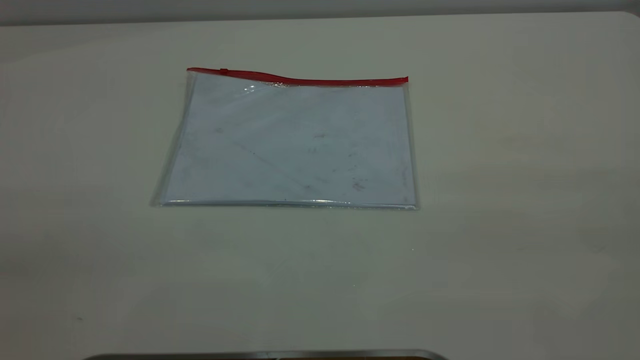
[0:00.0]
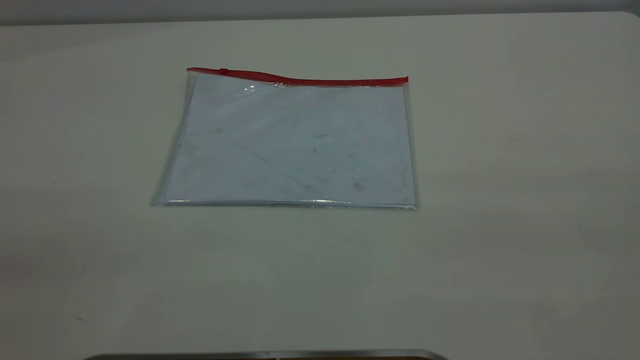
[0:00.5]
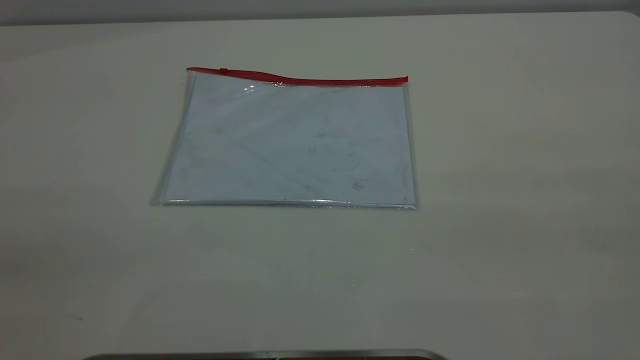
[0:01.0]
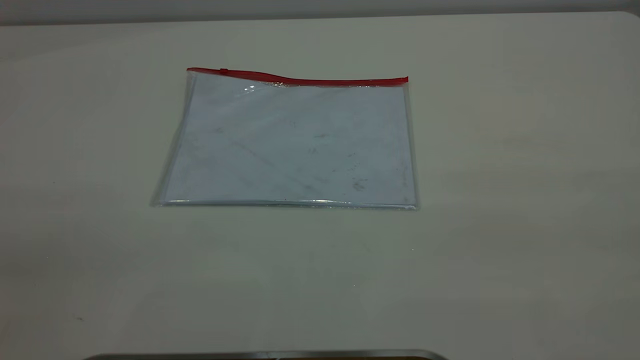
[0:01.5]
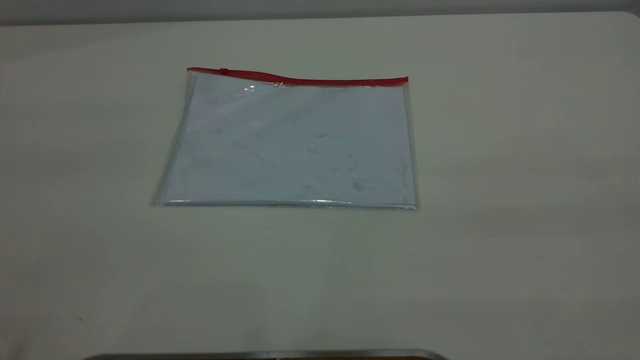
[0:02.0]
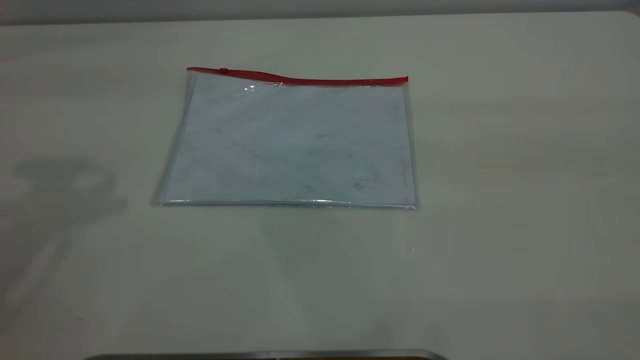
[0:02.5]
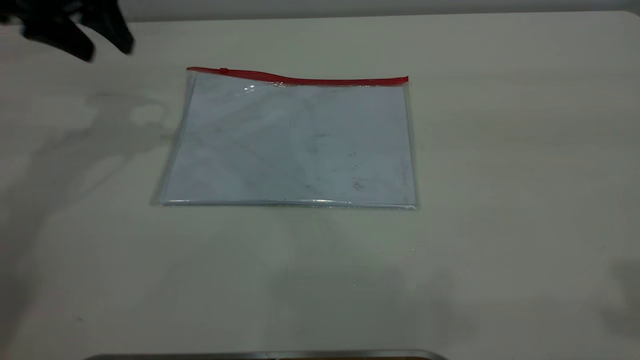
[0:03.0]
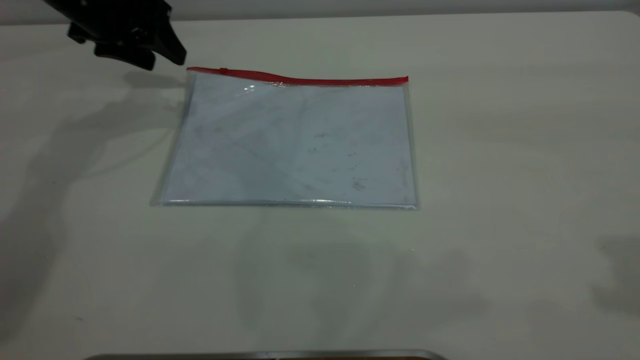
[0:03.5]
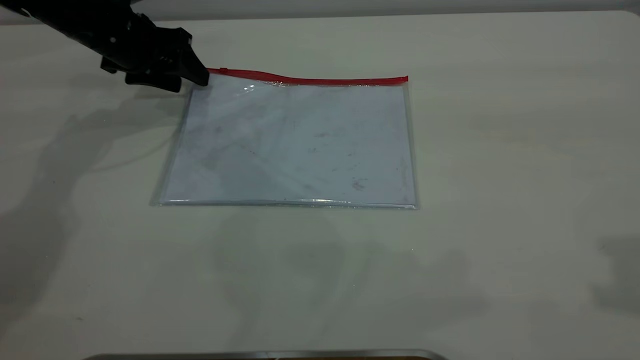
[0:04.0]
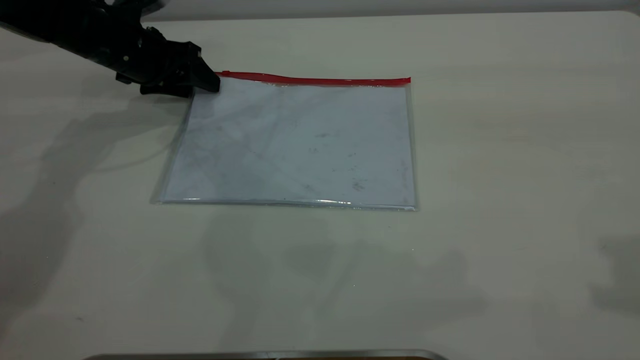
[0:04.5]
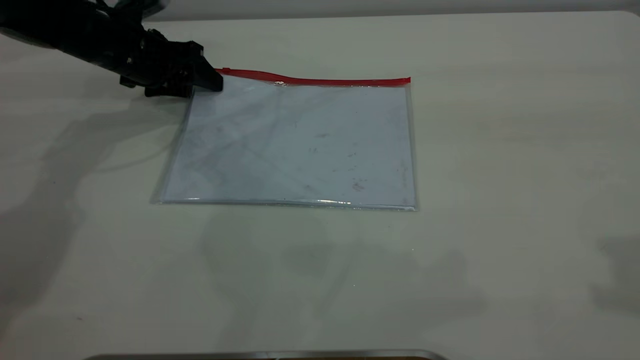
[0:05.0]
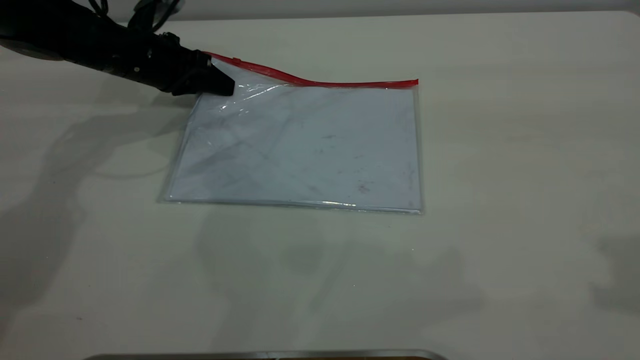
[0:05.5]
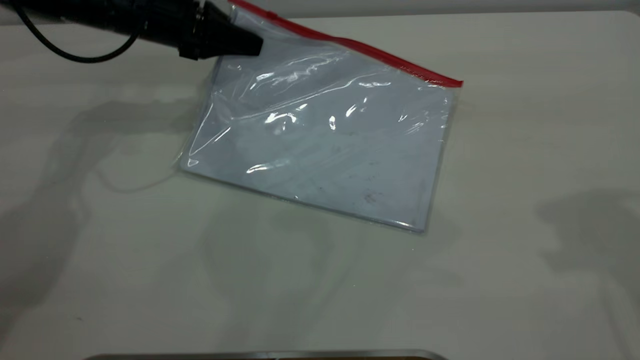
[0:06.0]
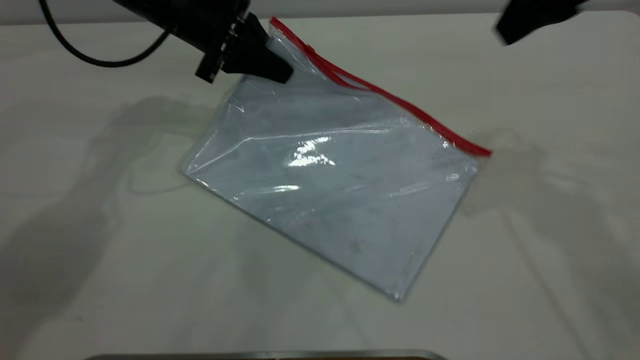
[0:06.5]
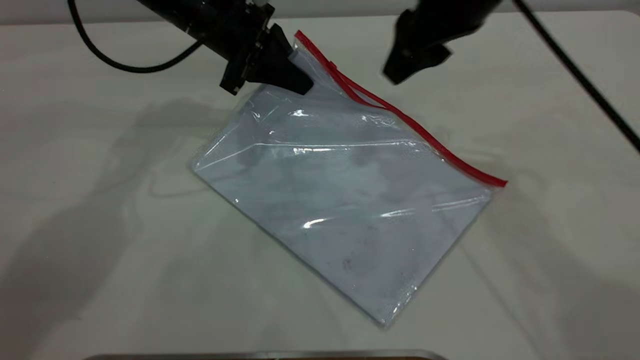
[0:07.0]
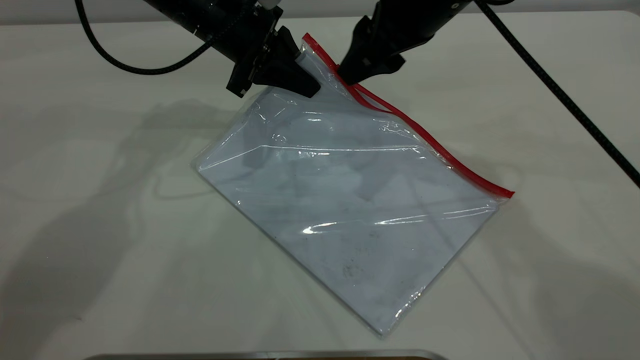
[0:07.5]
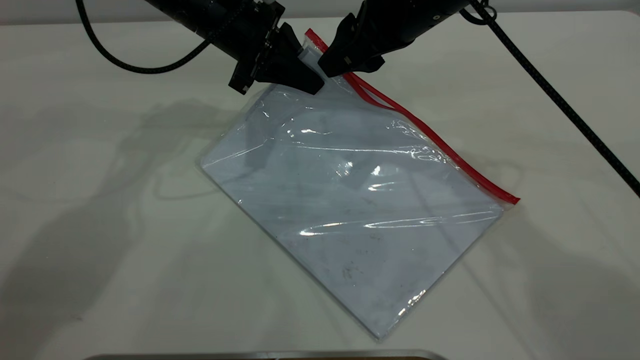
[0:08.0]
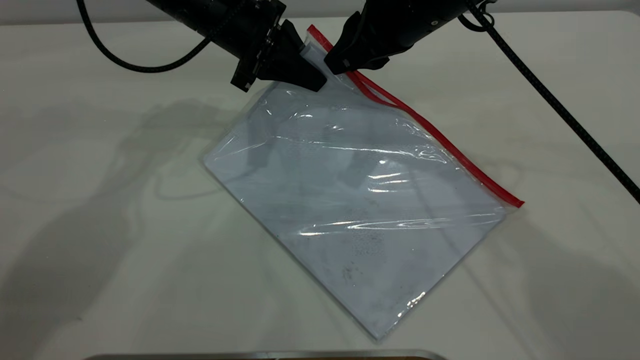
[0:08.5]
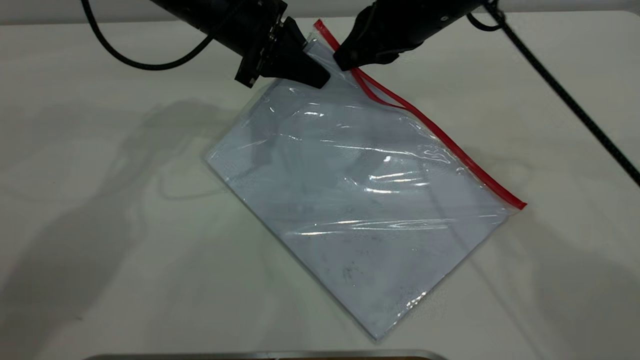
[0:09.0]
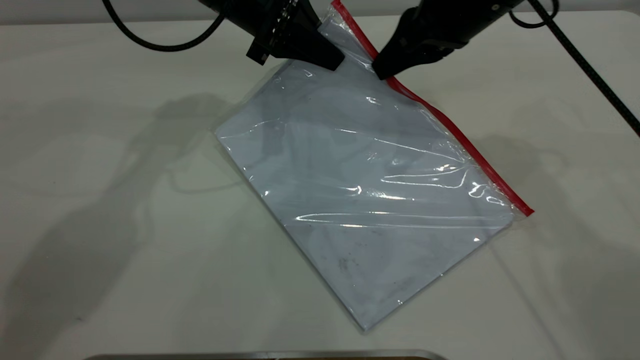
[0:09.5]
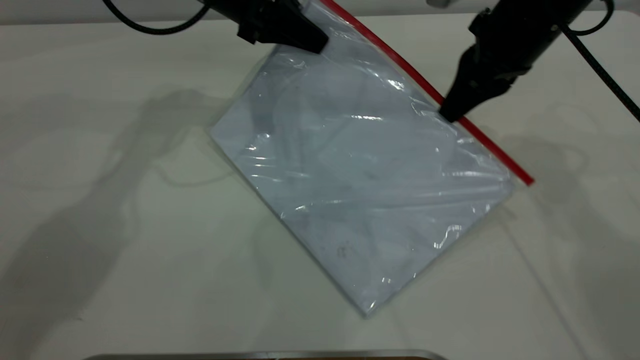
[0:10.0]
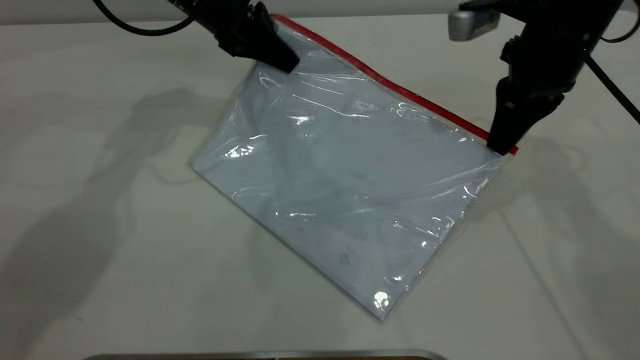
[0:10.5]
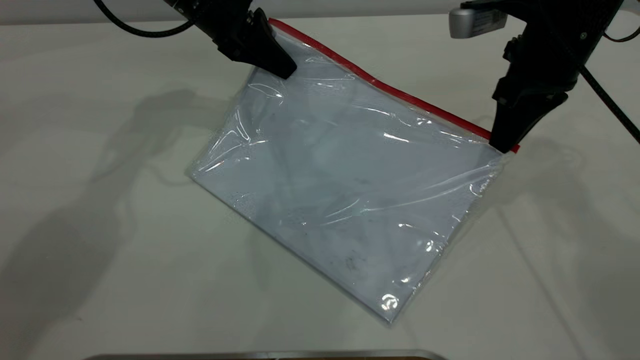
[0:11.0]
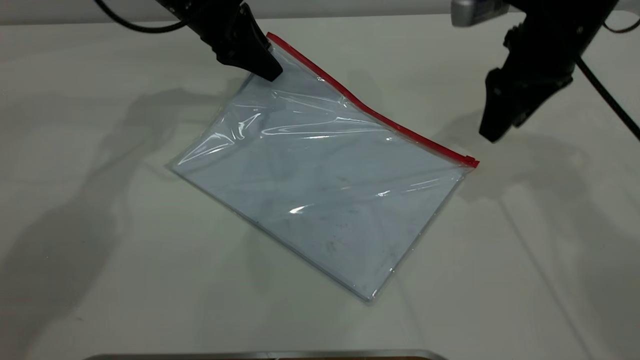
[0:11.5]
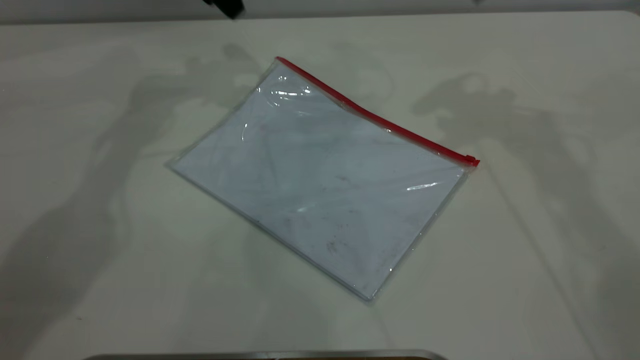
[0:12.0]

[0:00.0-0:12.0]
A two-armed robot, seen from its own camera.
Step, 0:00.0 to 0:05.5: Pick up the transparent plastic bag with the left gripper.
Step, 0:06.0 to 0:11.0: Pulling up the zipper on the transparent plastic bag with the right gripper to close it.
0:02.0 to 0:04.0: The left gripper goes roughly 50 cm forward and downward.
0:04.0 to 0:06.0: The left gripper is displaced to the right by some 5 cm, and closes its fingers; the right gripper heads forward, covering some 5 cm.
0:06.0 to 0:08.0: The left gripper goes about 10 cm to the right. Meanwhile the right gripper moves to the left, forward and downward, approximately 30 cm.
0:08.0 to 0:10.0: The right gripper is displaced to the right by roughly 10 cm, and closes its fingers.
0:10.0 to 0:12.0: The left gripper shifts approximately 10 cm upward, forward and to the left, and opens up. The right gripper is displaced upward by roughly 15 cm, and opens.
